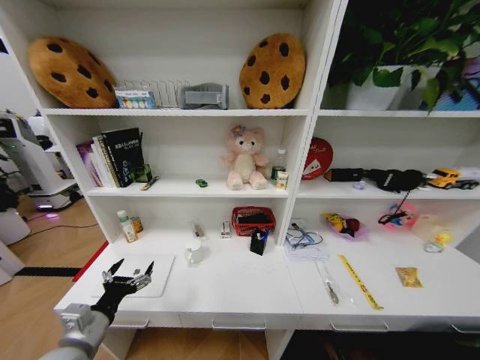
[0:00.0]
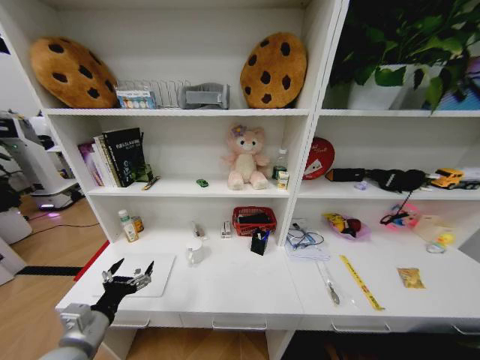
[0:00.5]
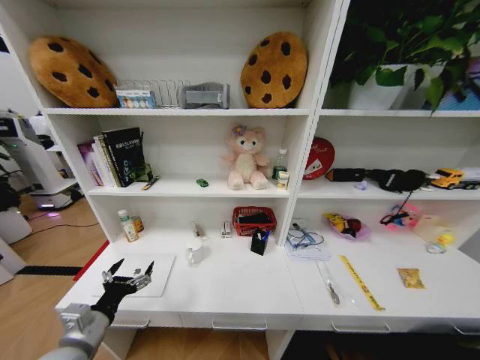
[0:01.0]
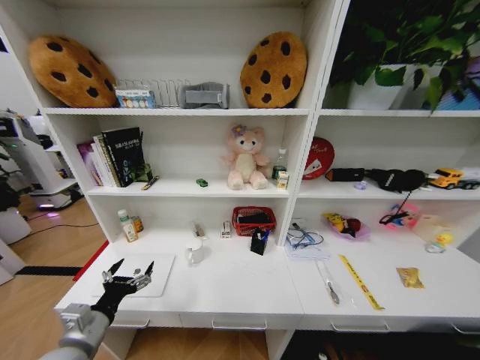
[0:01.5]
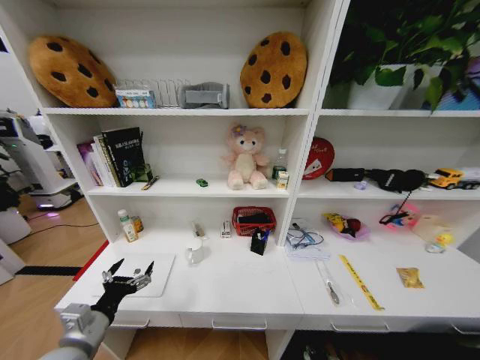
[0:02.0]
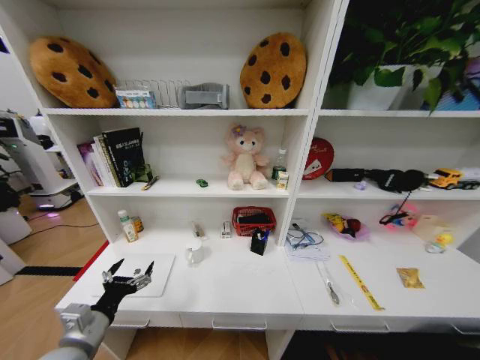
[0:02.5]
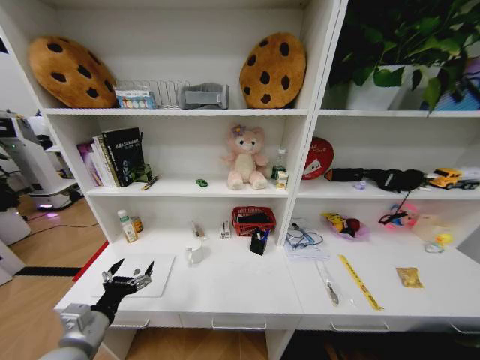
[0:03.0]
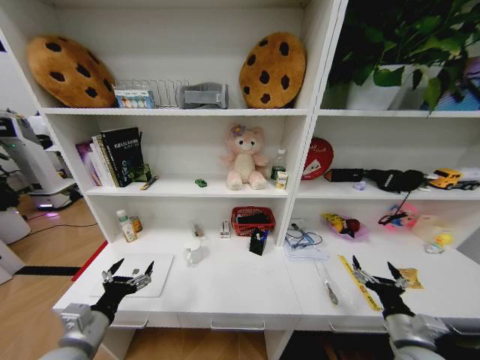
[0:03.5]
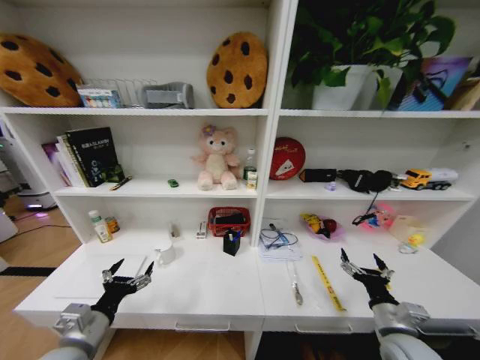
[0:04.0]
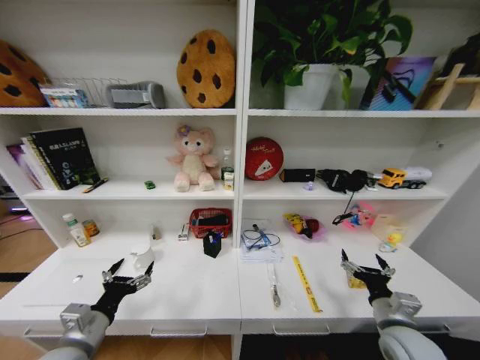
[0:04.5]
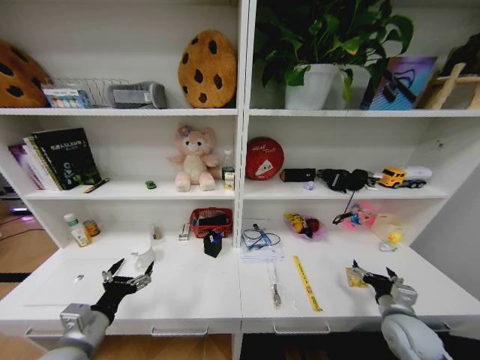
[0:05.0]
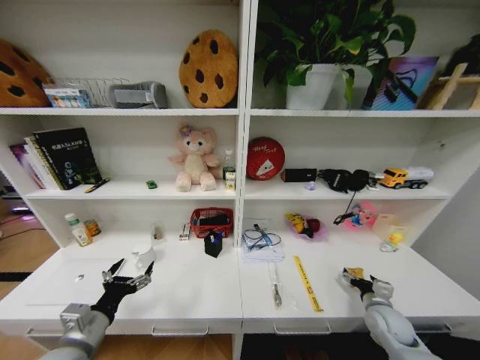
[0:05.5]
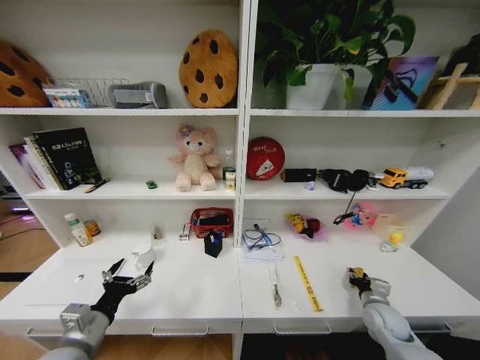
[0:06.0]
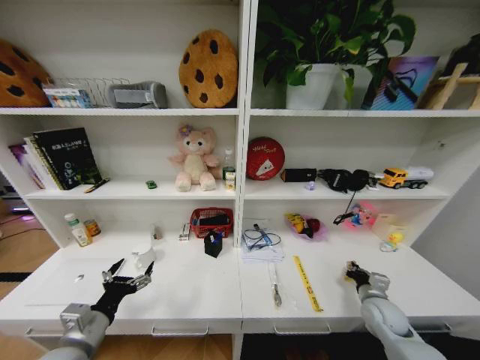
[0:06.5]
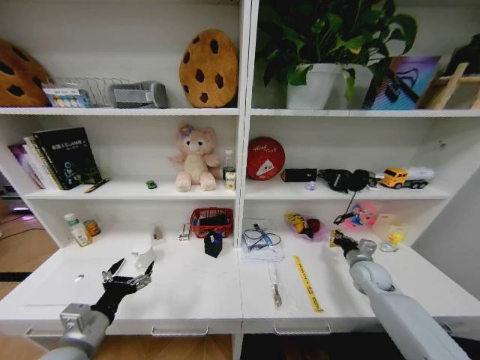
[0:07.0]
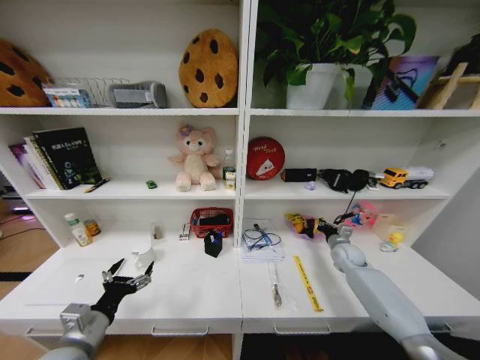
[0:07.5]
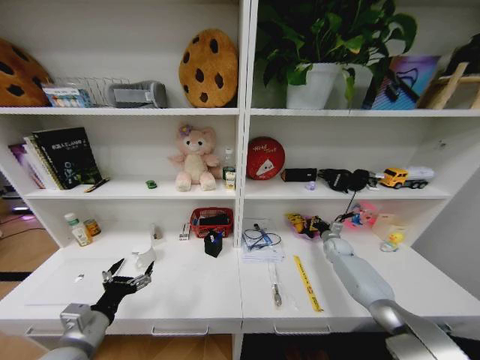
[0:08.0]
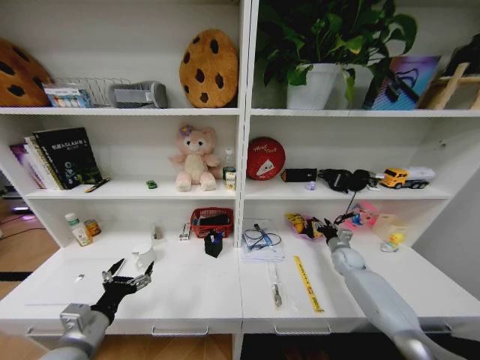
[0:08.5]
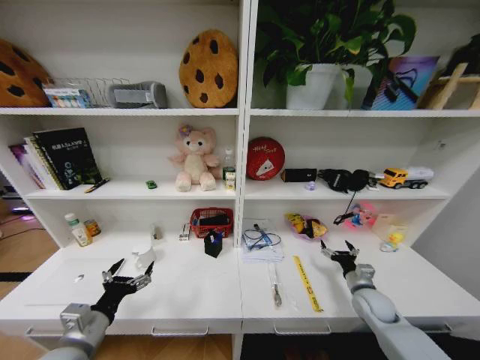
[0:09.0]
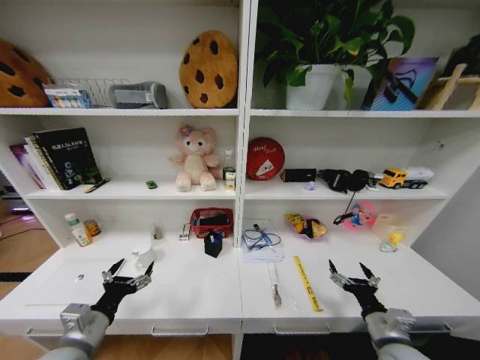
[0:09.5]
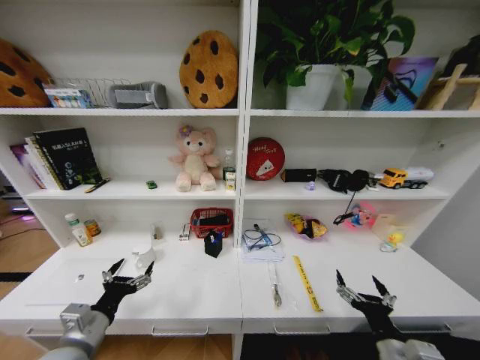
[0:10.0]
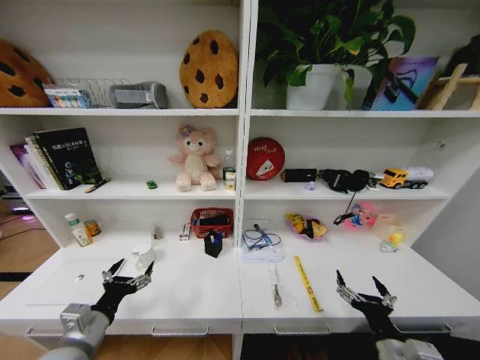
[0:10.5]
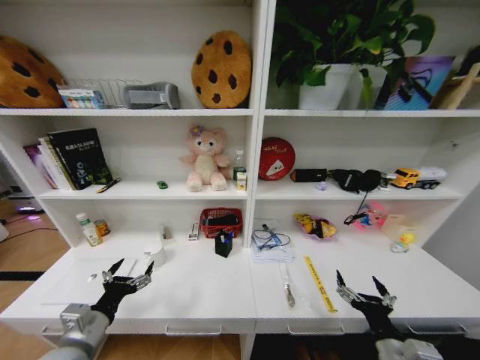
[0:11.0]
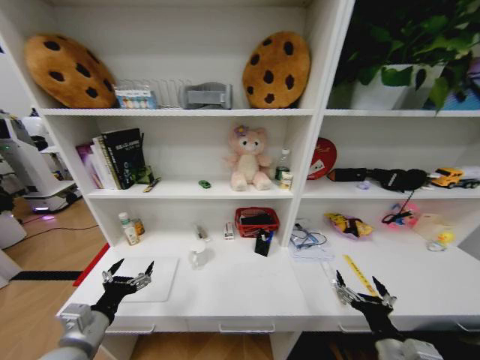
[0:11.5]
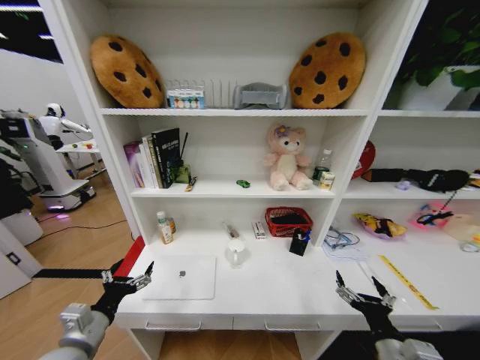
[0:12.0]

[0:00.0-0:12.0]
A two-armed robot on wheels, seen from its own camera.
Task of the whole recording: Organize the objects on the table.
0:00.0 to 0:02.0: The right gripper heads downward and forward, covering some 35 cm.
0:02.0 to 0:04.0: The right gripper travels upward by approximately 40 cm, and opens.
0:04.0 to 0:06.0: The right gripper travels forward, downward and to the right by approximately 15 cm, and closes its fingers.
0:06.0 to 0:08.0: The right gripper moves forward, about 25 cm, and closes up.
0:08.0 to 0:10.0: The right gripper goes some 40 cm backward, and opens its fingers.
